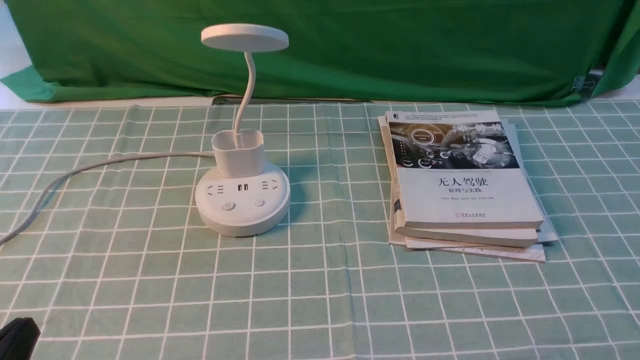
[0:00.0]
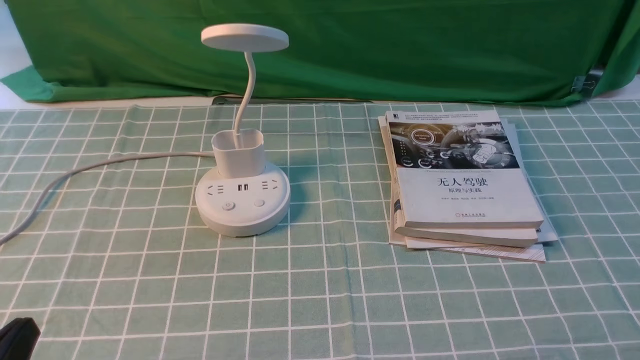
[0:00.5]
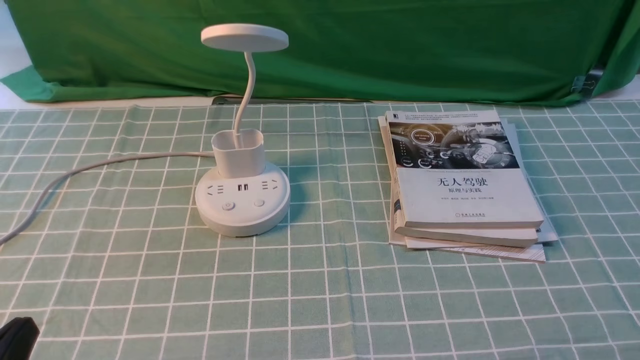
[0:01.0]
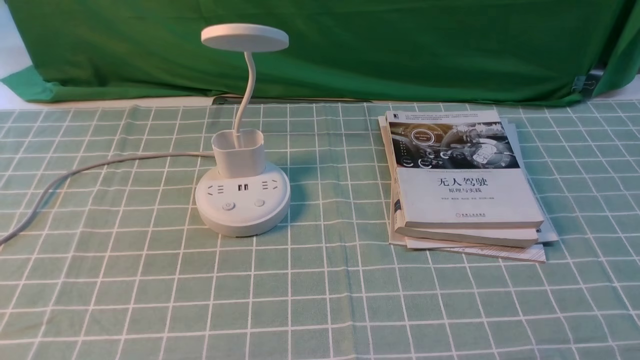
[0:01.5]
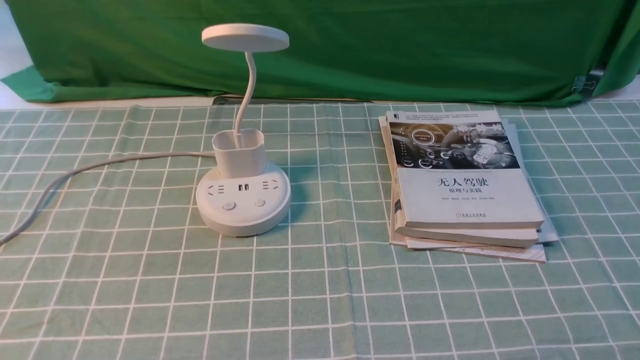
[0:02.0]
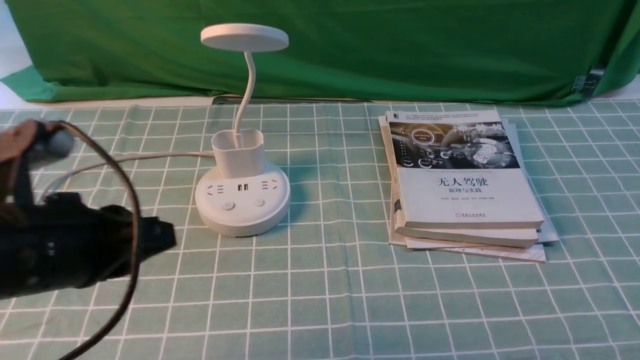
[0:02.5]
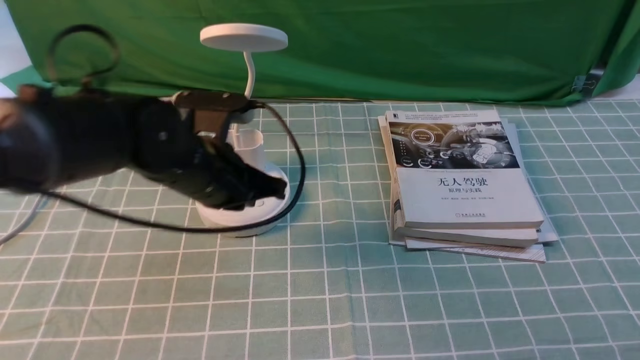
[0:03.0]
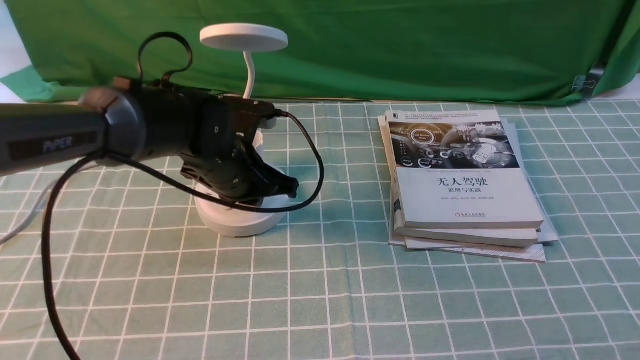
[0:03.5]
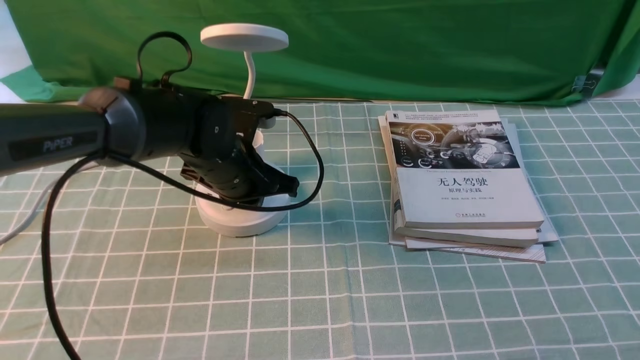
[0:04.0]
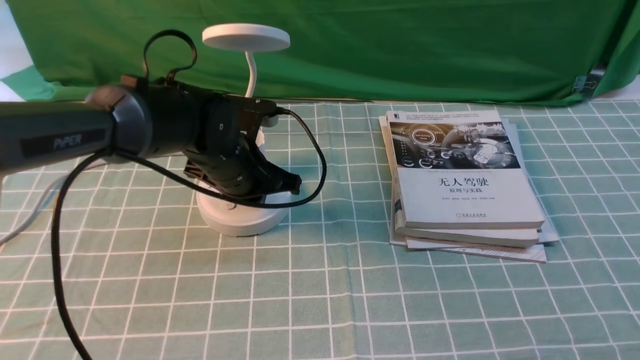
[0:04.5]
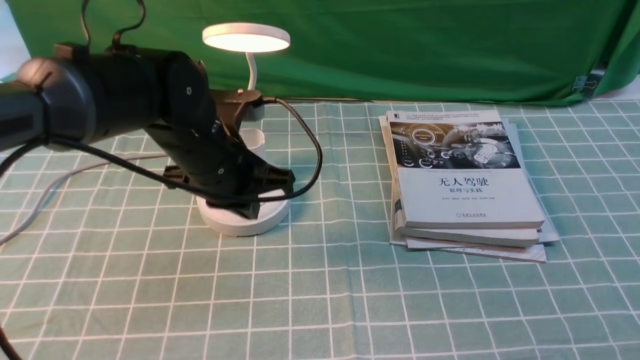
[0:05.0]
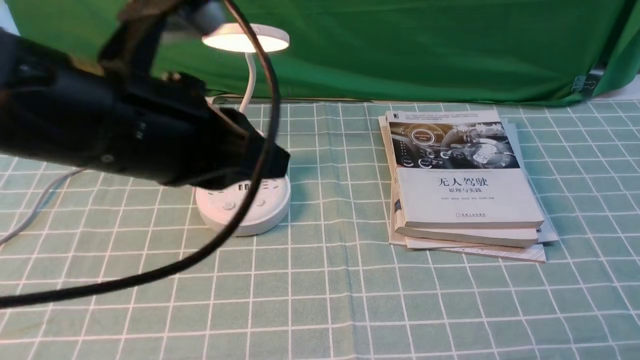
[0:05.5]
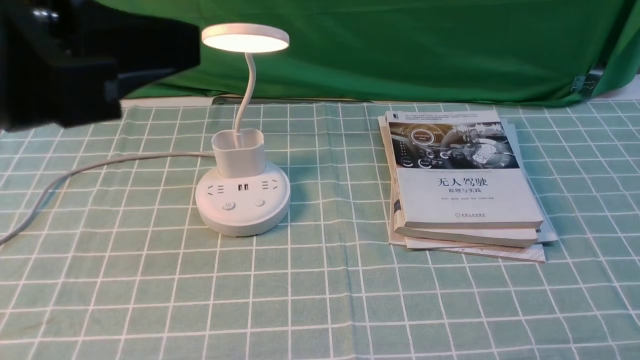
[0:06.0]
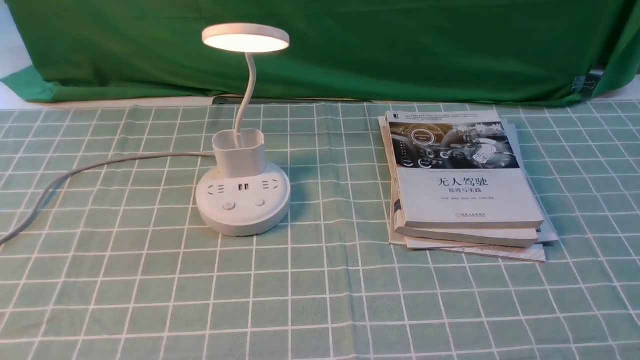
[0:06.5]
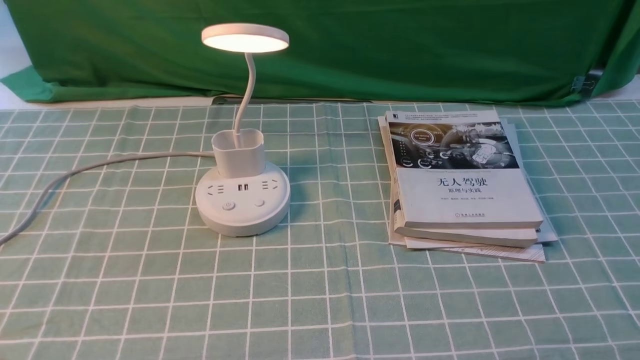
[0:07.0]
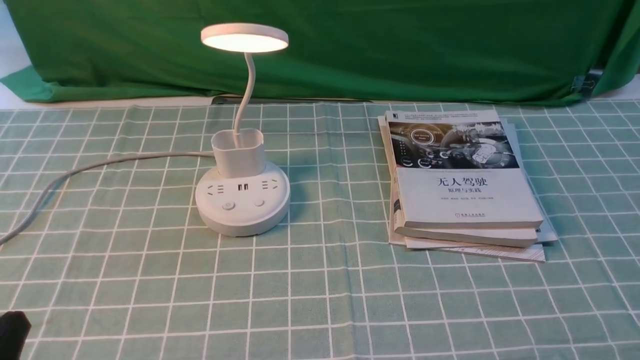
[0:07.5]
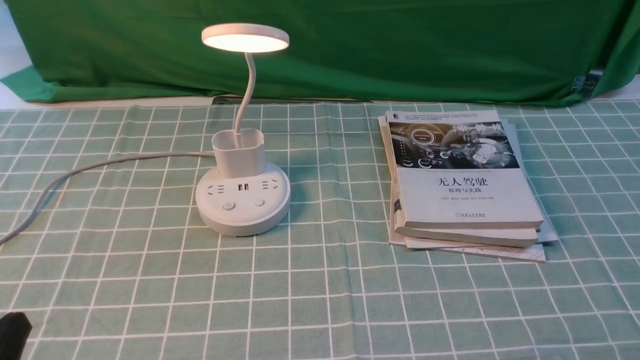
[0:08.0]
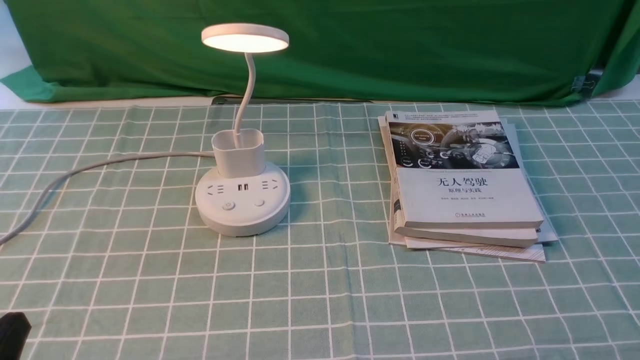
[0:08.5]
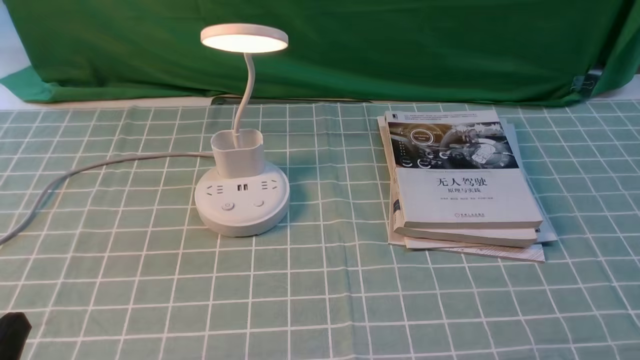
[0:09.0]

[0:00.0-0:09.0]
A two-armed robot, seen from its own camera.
Step, 0:00.0 to 0:04.5: use the left arm to press the button switch on the lamp holder.
0:02.0 to 0:04.5: The left gripper travels forward, downward and to the right by roughly 40 cm, and closes its fingers.
0:04.5 to 0:07.0: The left gripper travels backward and to the left by some 35 cm.
